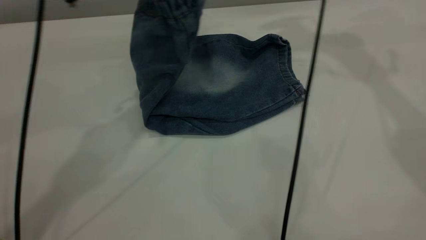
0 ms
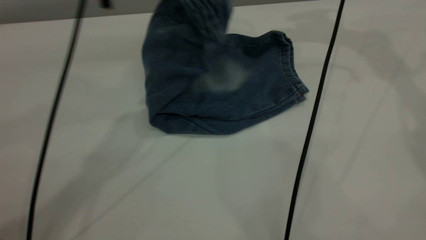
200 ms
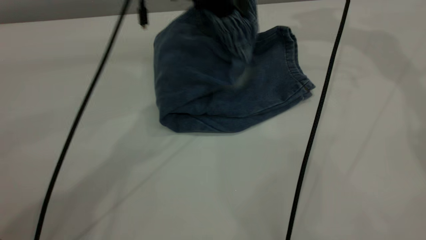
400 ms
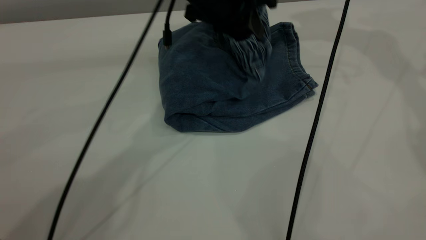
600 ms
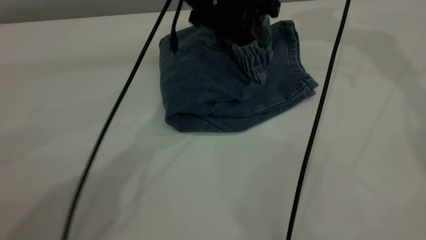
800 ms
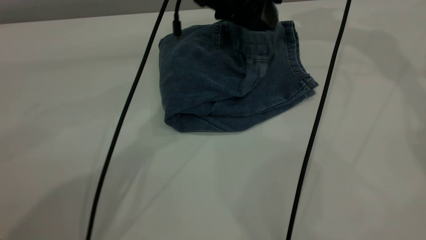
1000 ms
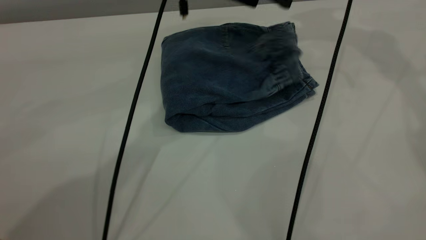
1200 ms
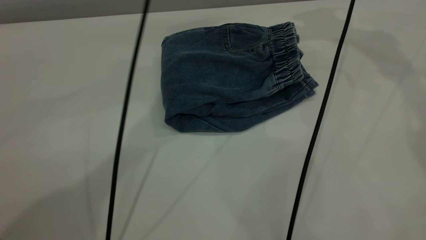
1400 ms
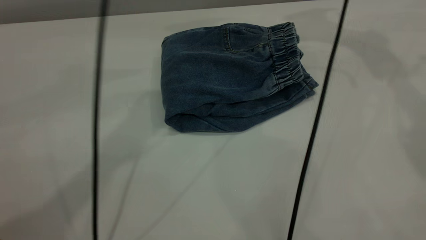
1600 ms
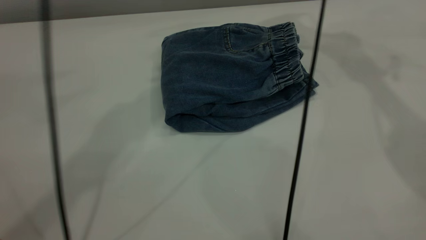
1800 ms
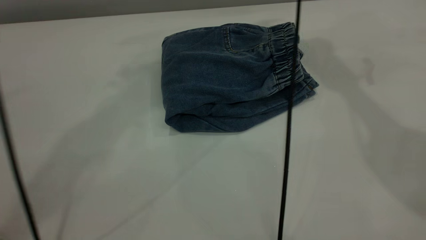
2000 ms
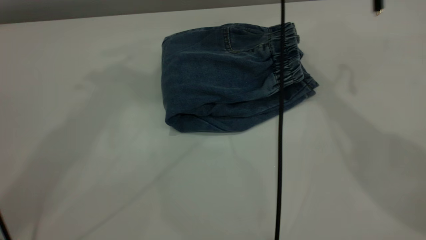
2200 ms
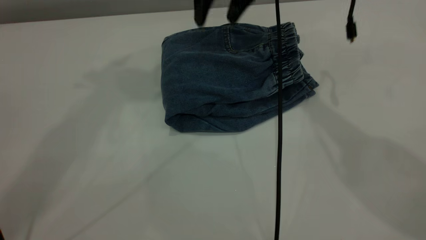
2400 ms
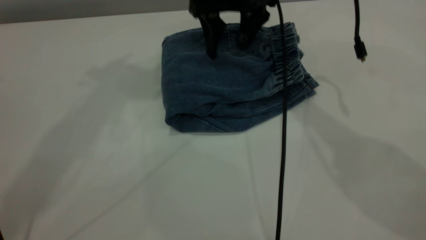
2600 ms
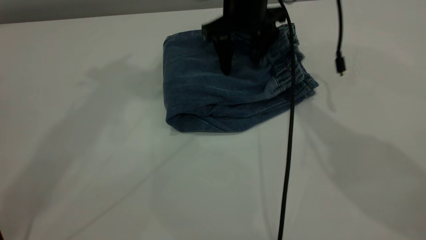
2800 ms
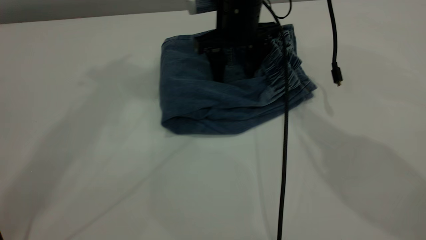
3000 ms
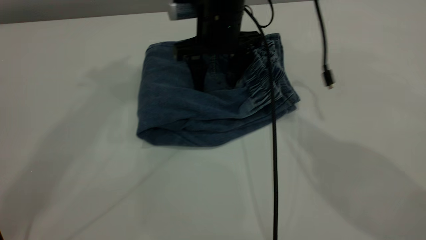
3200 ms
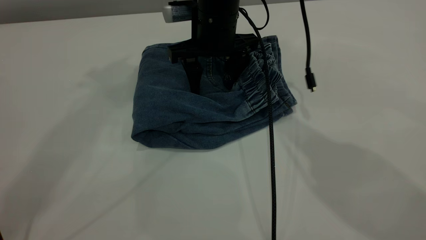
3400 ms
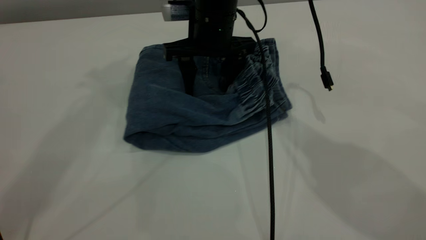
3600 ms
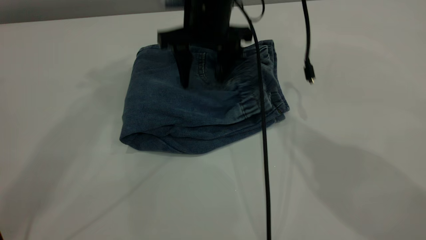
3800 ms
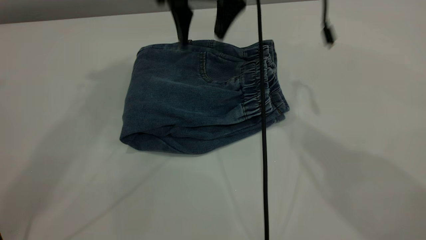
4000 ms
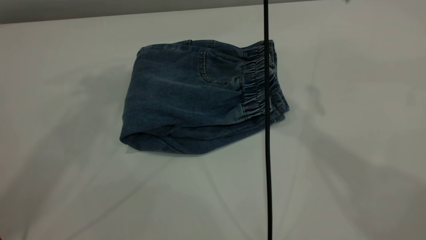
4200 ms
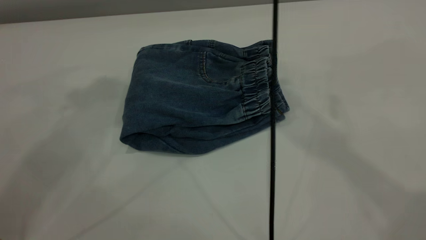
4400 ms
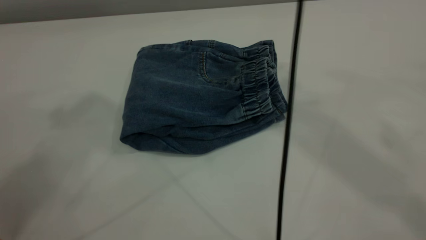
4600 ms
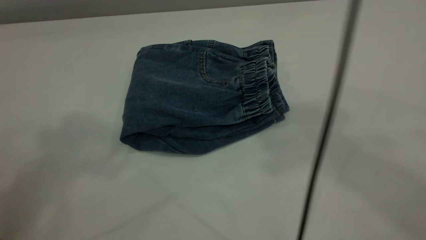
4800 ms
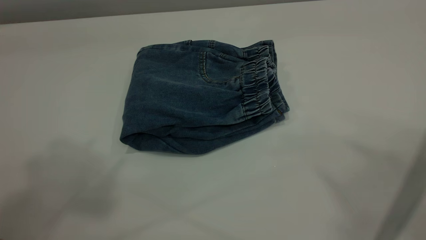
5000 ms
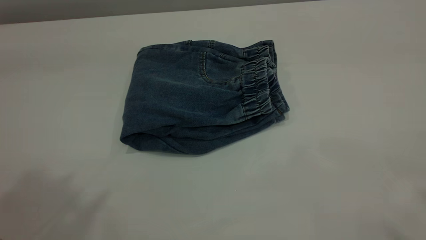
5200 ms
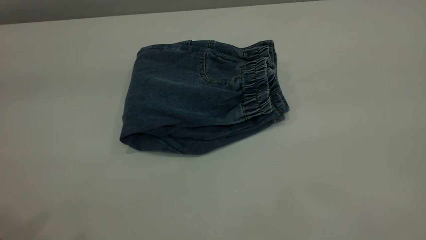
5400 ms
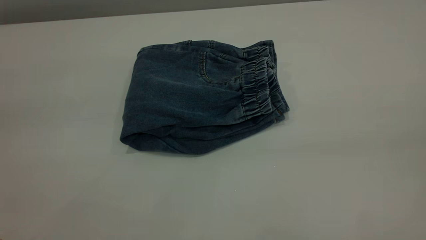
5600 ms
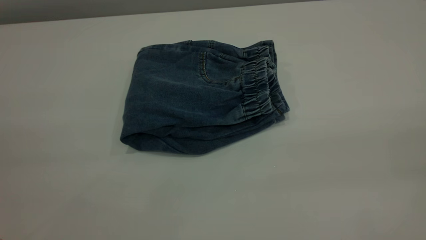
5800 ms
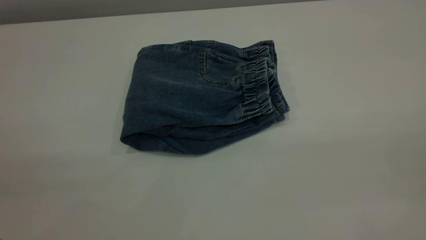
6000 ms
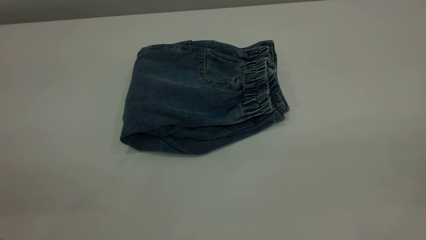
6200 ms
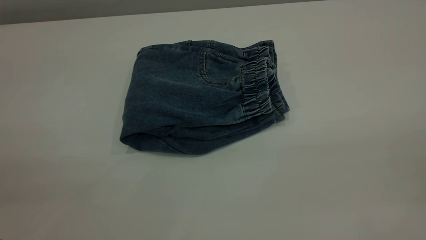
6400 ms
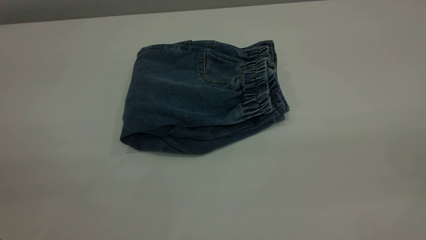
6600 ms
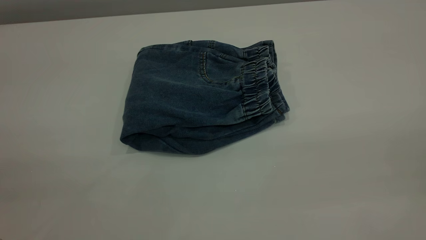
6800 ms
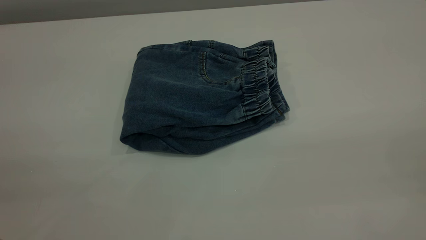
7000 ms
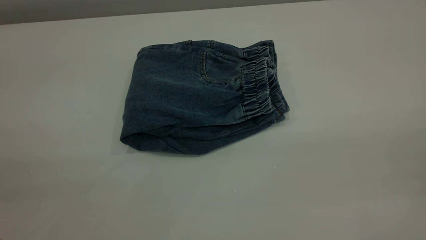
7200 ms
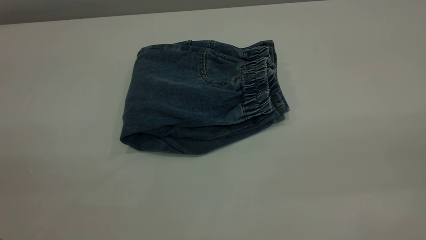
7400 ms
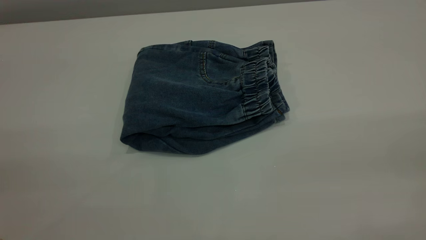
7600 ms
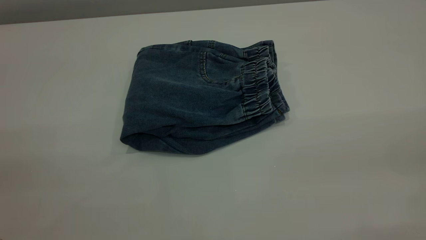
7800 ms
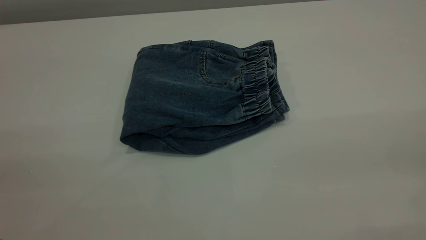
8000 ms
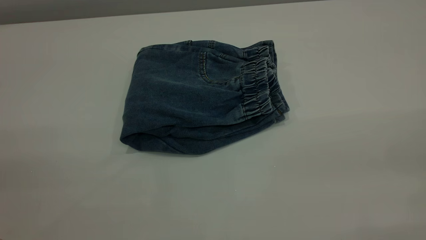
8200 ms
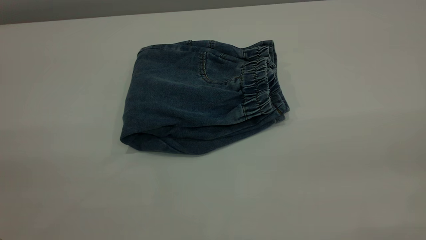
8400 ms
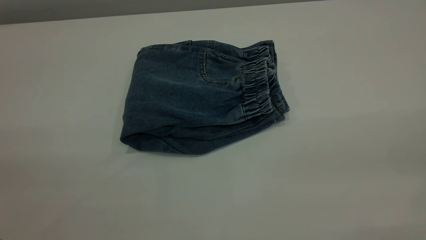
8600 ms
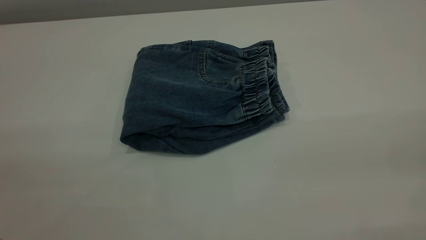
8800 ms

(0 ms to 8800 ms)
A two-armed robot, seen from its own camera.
0 ms - 1400 ms: The left gripper heads to the right, covering some 10 cm, goes downward and returns, approximately 10 cm each way, and opens up. Meanwhile the right gripper changes place by roughly 5 cm.
1400 ms - 3000 ms: The left gripper heads upward and to the left, covering about 25 cm. The right gripper goes approximately 30 cm downward, to the left and backward.
3000 ms - 4400 ms: The right gripper goes some 30 cm upward. Meanwhile the left gripper is displaced backward by roughly 5 cm.
4400 ms - 5800 ms: The right gripper heads backward and to the right, covering approximately 50 cm. Meanwhile the left gripper shifts some 30 cm backward.

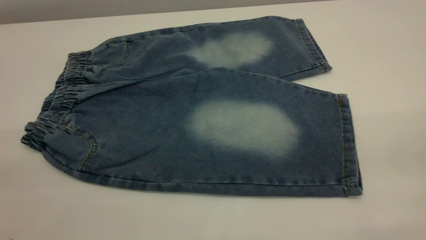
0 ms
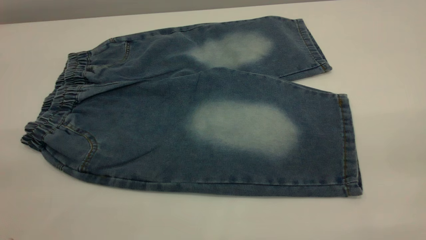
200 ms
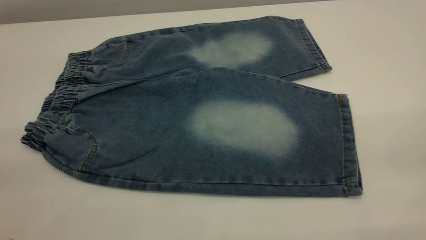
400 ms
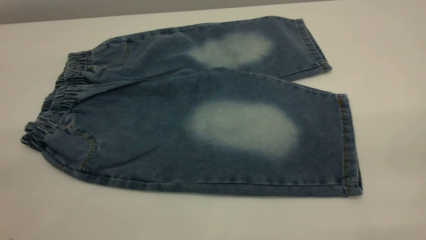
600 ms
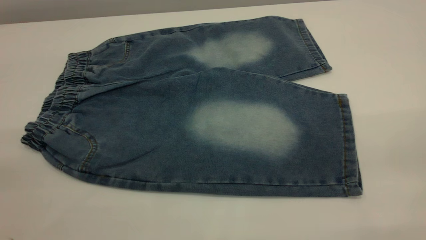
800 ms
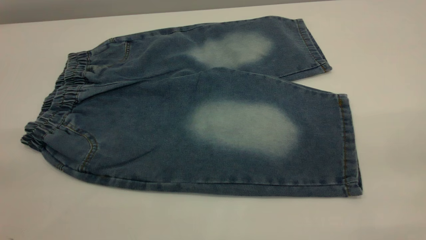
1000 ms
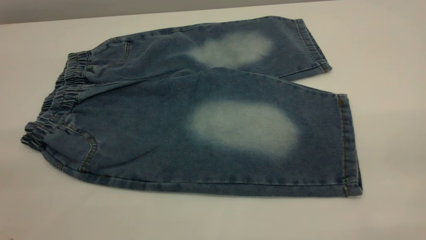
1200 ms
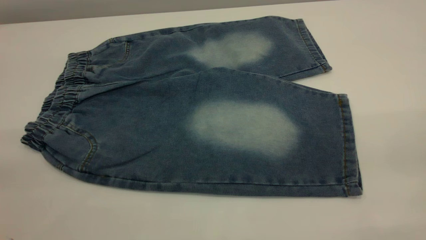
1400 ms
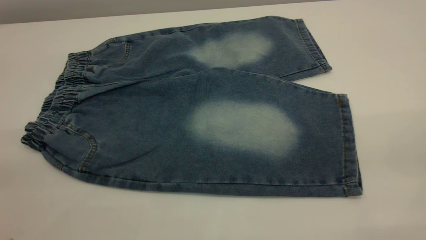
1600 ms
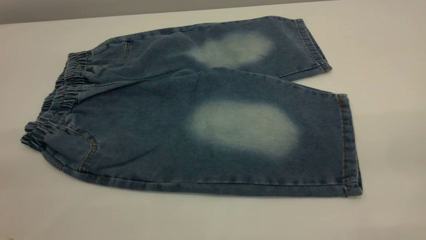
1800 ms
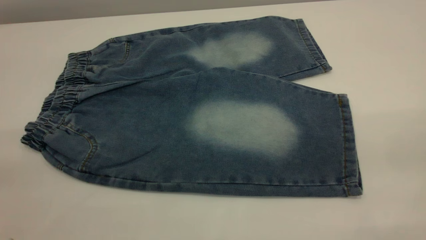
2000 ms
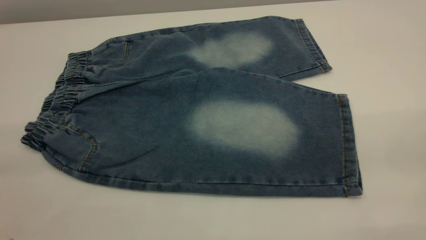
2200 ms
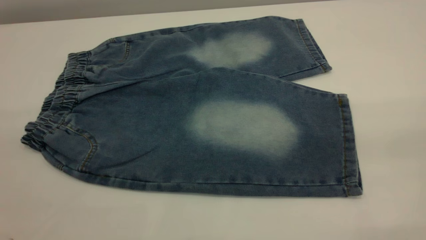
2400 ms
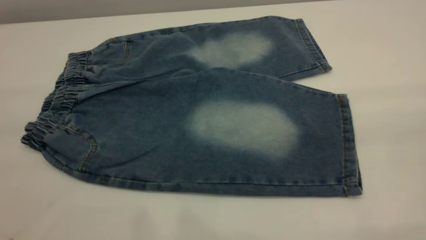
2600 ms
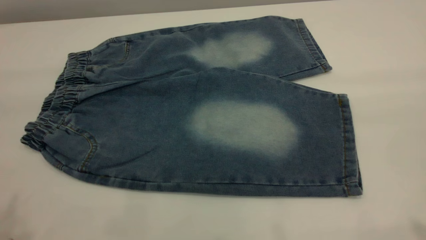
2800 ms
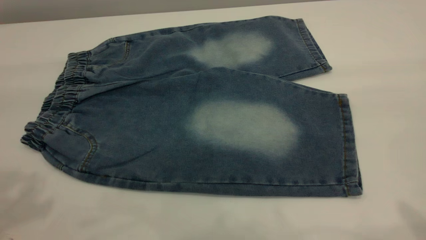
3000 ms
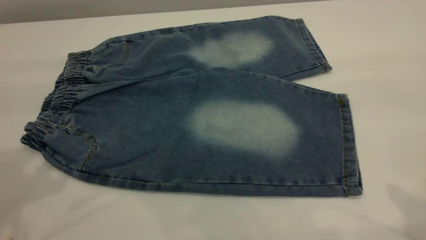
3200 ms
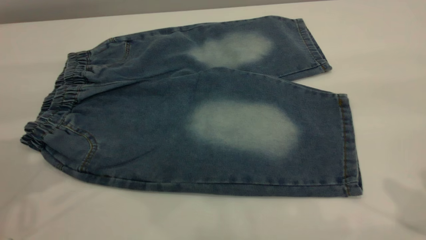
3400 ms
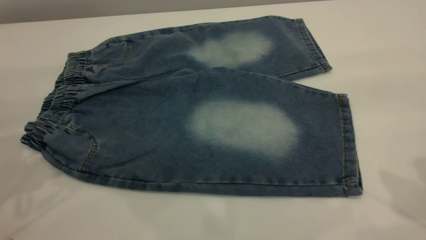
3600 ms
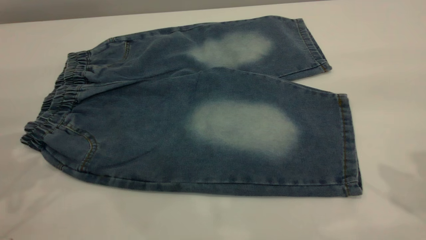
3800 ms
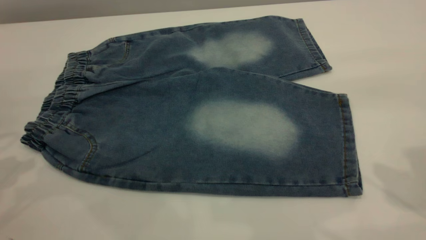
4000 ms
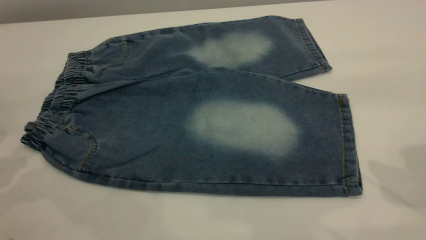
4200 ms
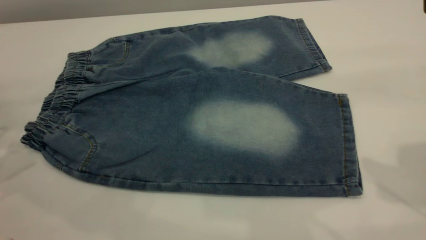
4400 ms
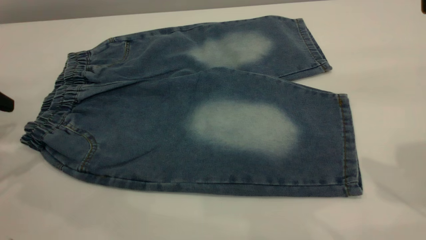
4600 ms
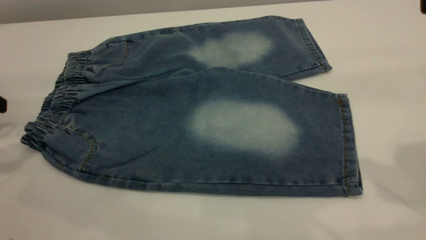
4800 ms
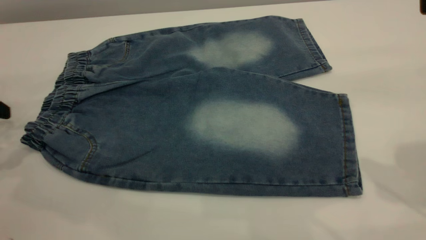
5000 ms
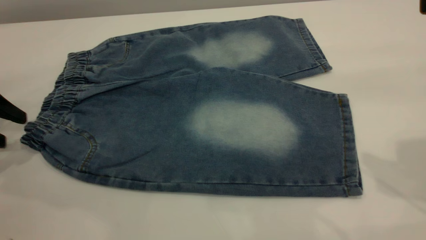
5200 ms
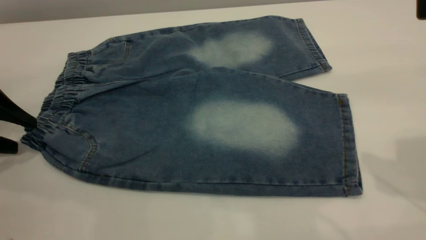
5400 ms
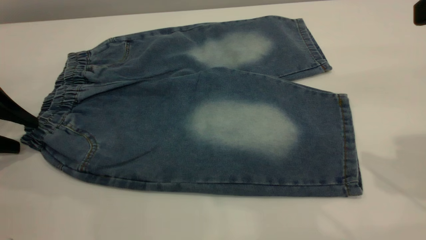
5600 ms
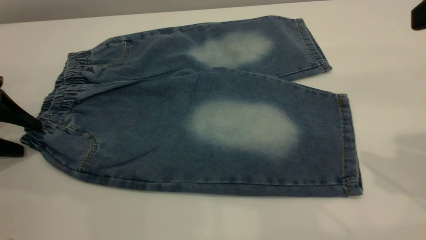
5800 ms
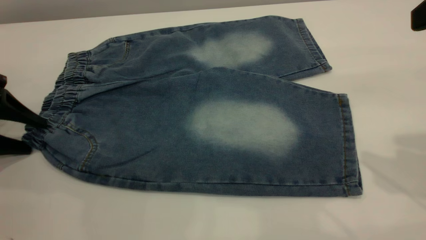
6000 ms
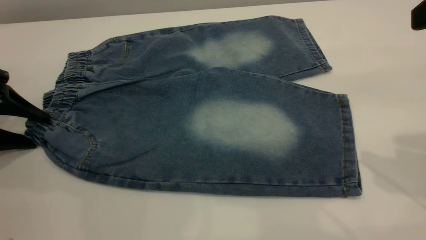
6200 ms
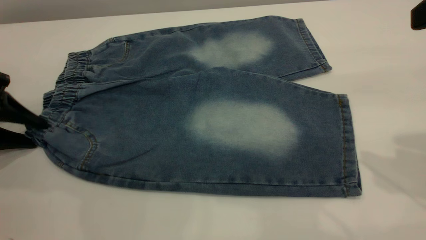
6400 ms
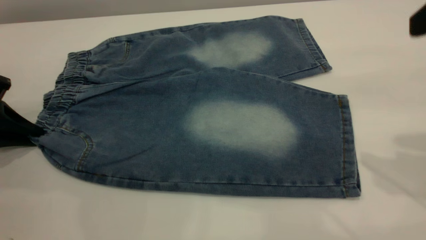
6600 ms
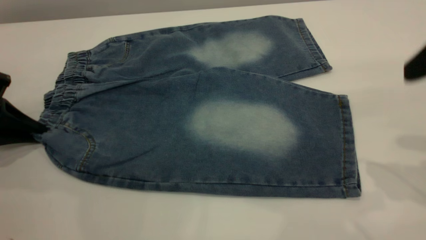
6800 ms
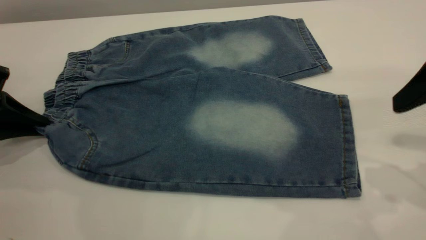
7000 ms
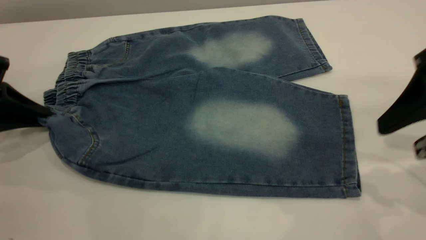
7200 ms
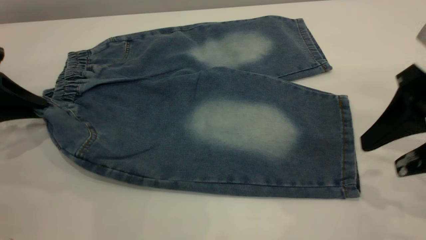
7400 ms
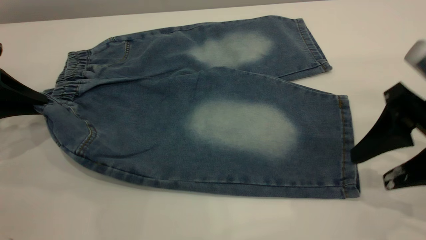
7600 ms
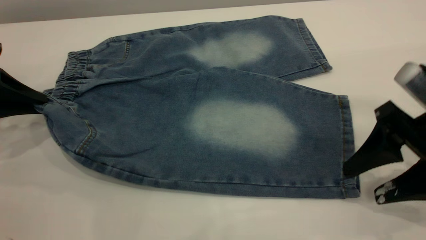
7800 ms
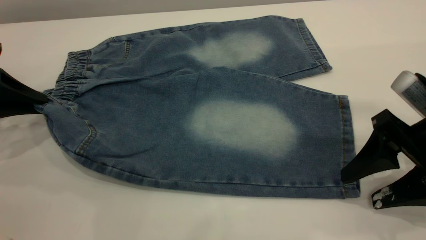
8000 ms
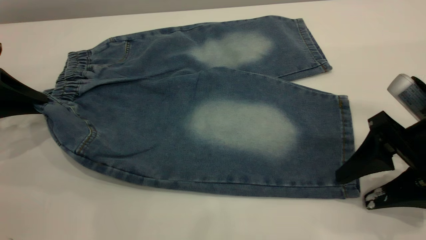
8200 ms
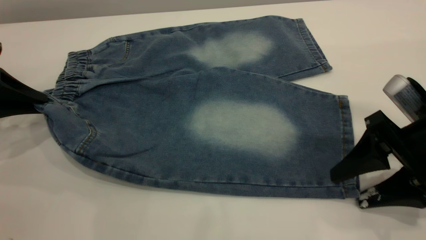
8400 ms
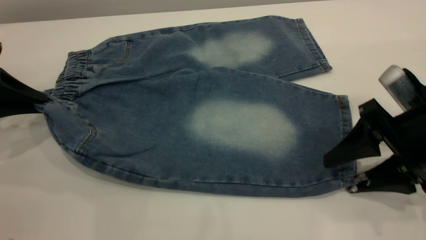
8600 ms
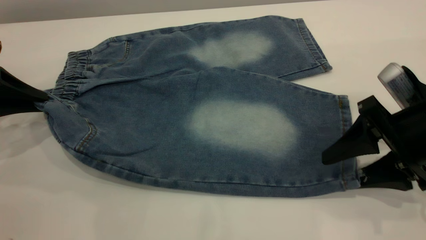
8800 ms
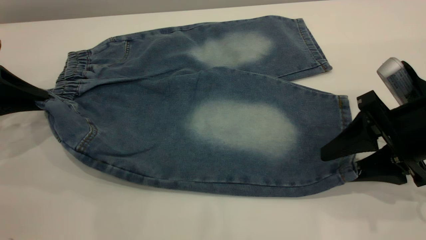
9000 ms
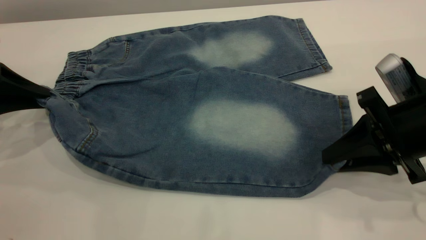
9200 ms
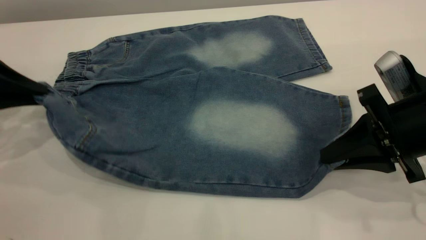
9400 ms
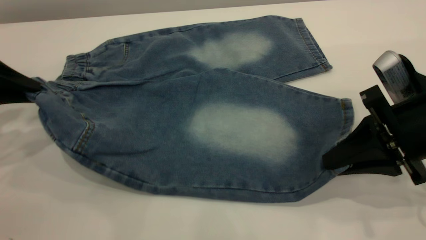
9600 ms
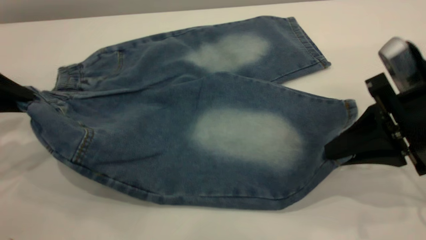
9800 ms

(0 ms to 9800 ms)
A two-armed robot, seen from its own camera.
0 ms - 1400 ms: Neither gripper changes place.
4200 ms - 5600 ms: The left gripper moves downward, some 10 cm.
5600 ms - 7000 ms: The right gripper is displaced downward by some 10 cm. The left gripper closes up.
7000 ms - 8400 ms: The right gripper shifts about 10 cm downward.
8400 ms - 9800 ms: The left gripper goes roughly 5 cm upward. Meanwhile the right gripper closes its fingers.
